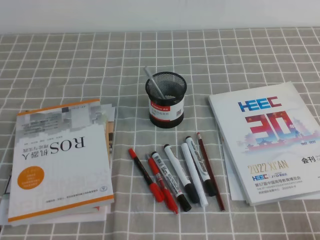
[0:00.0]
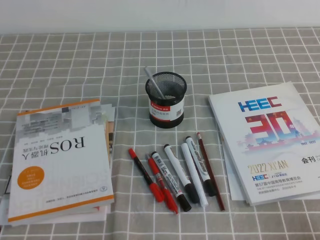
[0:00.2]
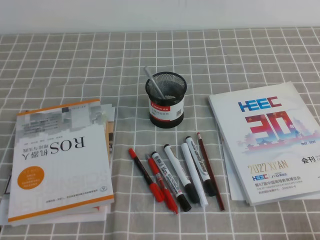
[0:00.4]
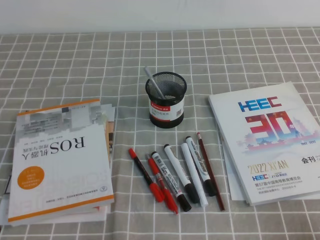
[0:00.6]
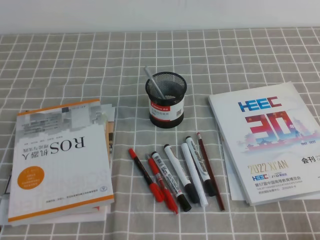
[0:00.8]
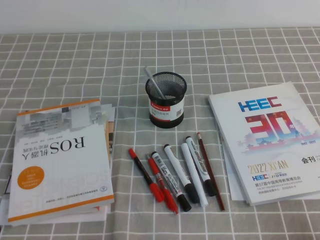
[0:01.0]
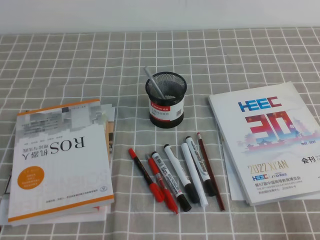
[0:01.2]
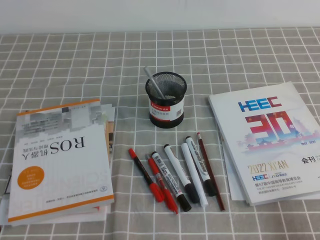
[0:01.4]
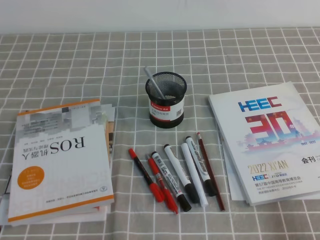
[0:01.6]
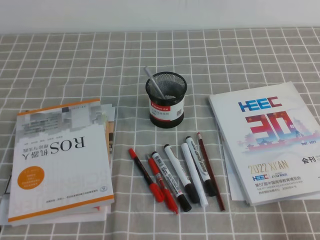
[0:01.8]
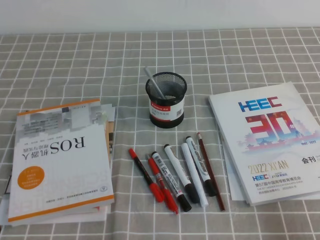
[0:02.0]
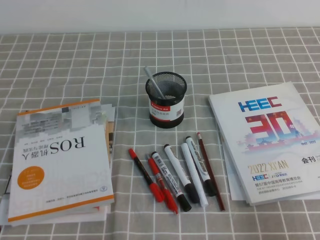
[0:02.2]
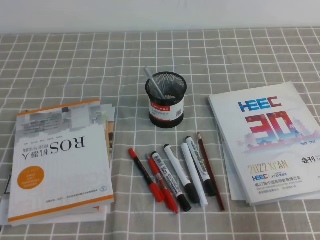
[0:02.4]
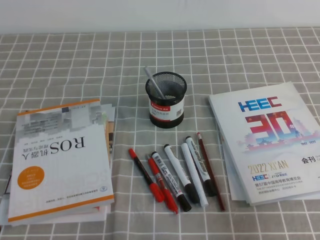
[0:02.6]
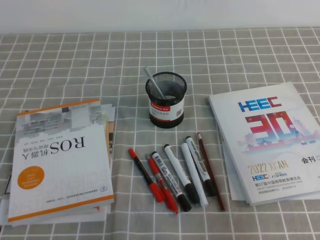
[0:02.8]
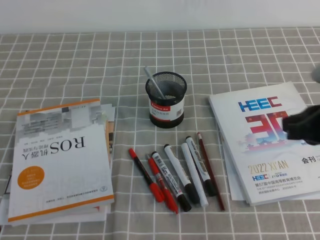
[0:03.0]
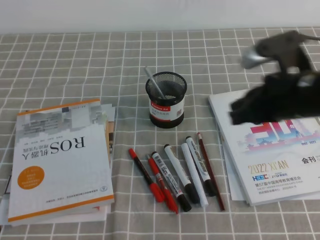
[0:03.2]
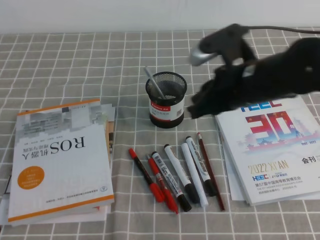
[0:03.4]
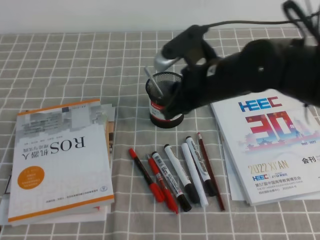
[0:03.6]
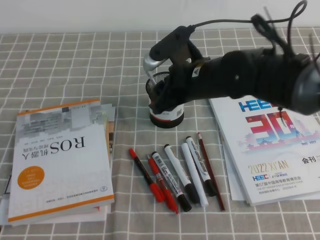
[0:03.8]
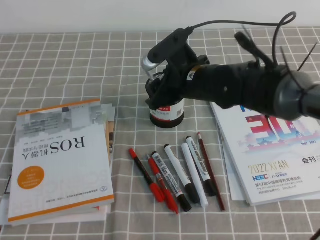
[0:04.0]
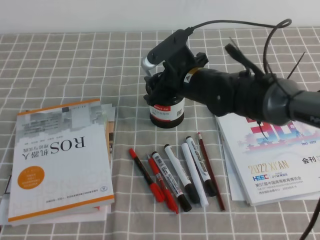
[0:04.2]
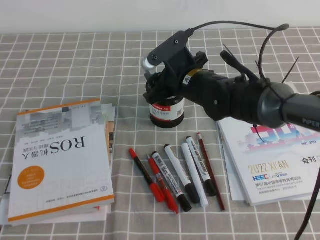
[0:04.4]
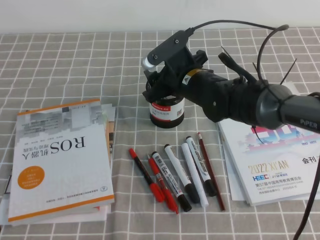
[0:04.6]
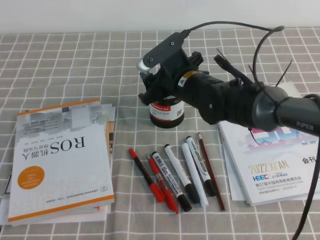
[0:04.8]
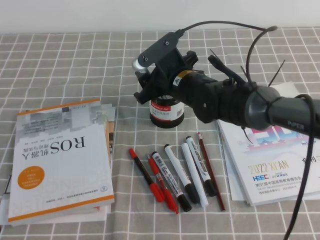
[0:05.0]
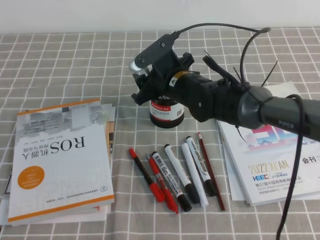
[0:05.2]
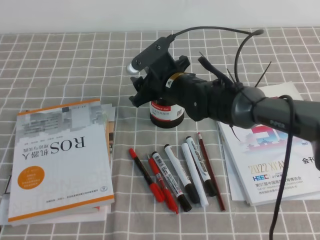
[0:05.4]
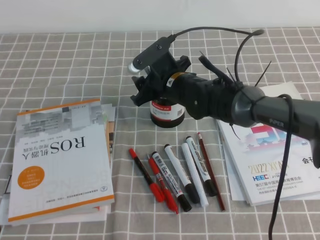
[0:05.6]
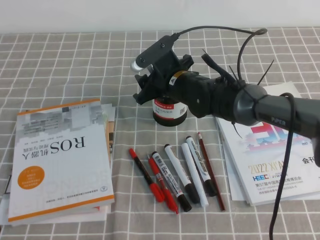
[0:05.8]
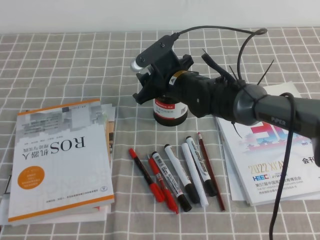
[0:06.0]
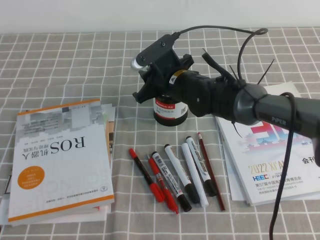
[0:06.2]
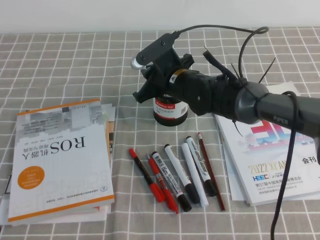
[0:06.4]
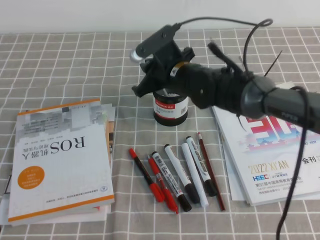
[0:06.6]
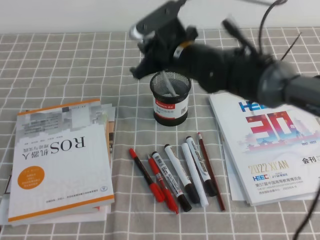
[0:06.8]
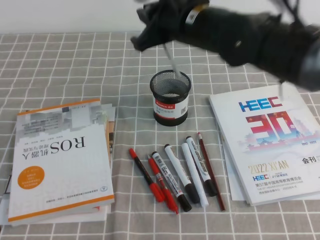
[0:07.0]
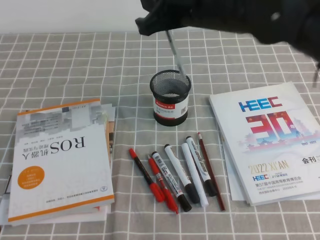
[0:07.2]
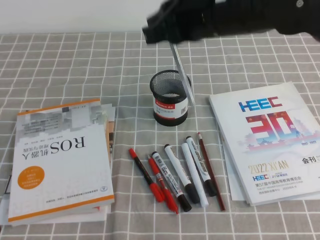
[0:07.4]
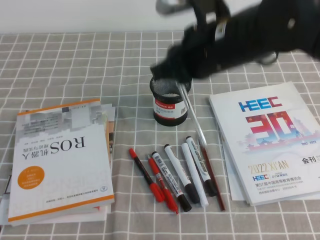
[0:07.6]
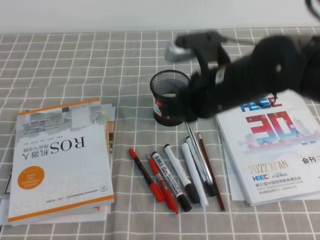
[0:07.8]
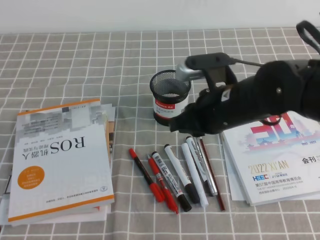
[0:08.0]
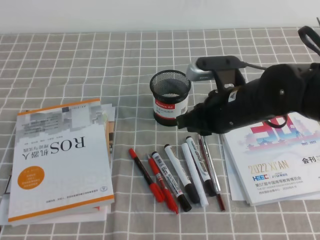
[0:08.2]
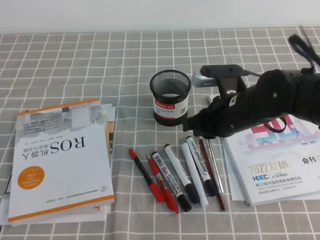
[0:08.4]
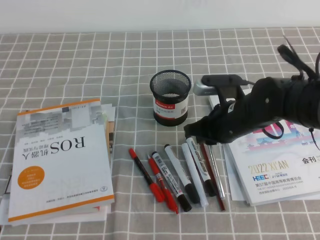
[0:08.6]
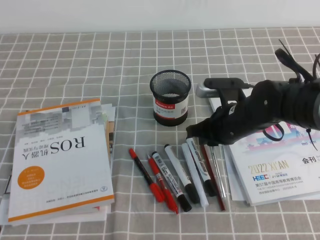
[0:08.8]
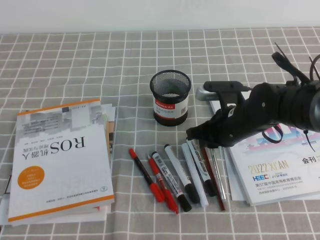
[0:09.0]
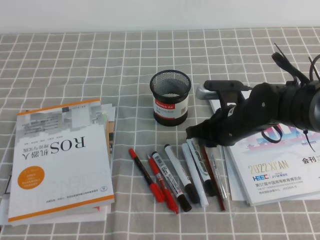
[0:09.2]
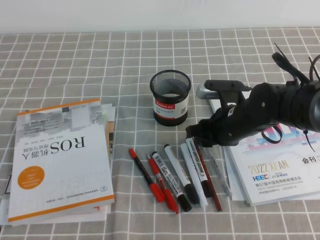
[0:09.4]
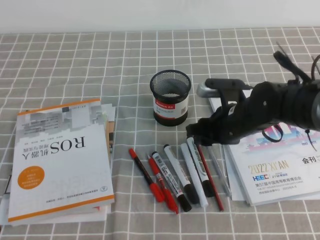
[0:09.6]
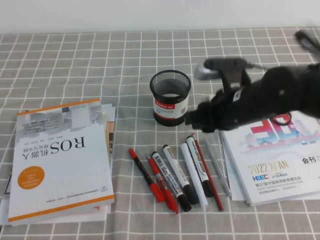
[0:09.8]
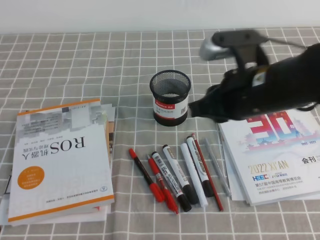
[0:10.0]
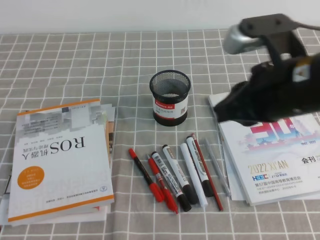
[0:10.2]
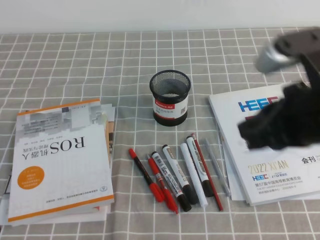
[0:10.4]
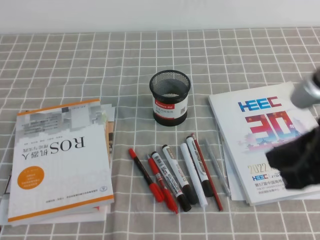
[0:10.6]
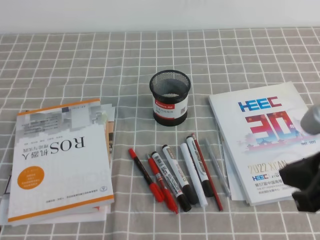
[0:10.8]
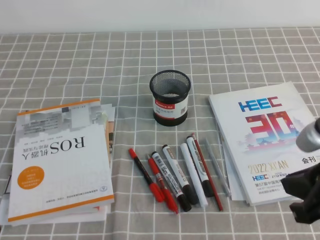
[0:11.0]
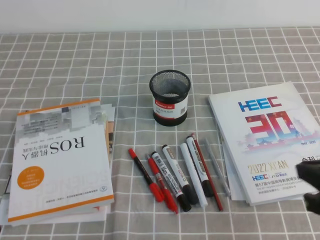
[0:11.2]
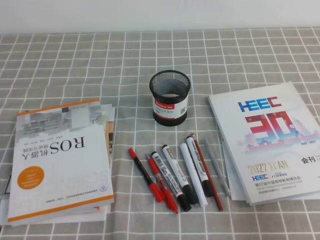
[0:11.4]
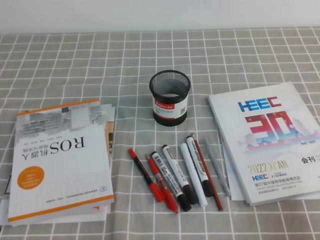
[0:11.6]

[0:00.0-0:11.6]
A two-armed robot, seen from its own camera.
0:01.4 to 0:02.8: The right gripper travels forward and upward by about 15 cm.
0:02.8 to 0:04.4: The right gripper goes some 35 cm to the left and forward, and opens up.
0:04.4 to 0:05.8: The grippers make only small movements.
0:05.8 to 0:07.2: The right gripper heads upward and backward, covering approximately 20 cm, and closes.
0:07.2 to 0:08.8: The right gripper goes some 20 cm downward.
0:08.8 to 0:10.2: The right gripper travels upward and backward by roughly 20 cm, and opens, then closes again.
0:10.2 to 0:11.6: The right gripper moves to the right, backward and downward, about 25 cm.

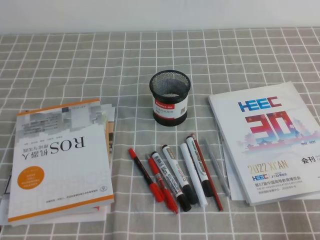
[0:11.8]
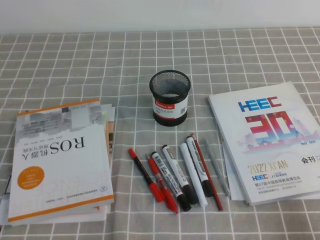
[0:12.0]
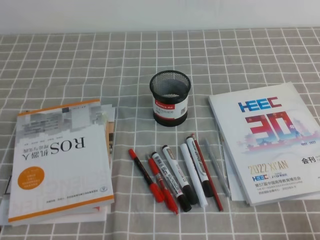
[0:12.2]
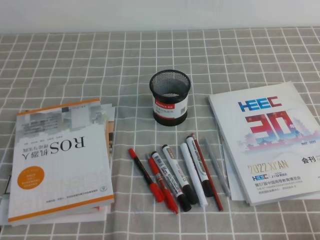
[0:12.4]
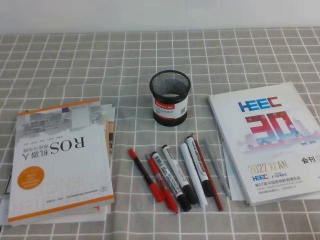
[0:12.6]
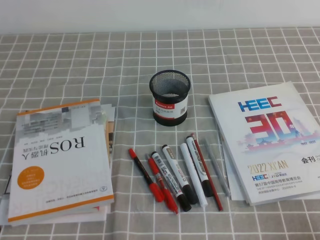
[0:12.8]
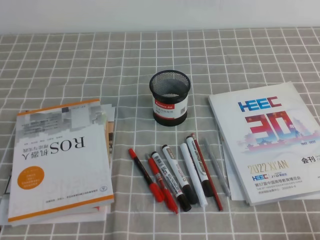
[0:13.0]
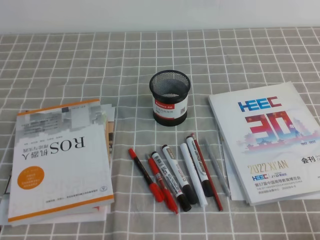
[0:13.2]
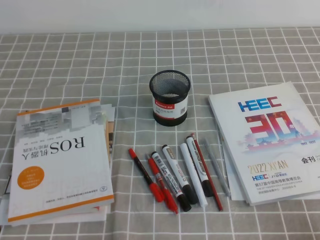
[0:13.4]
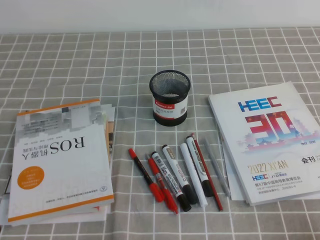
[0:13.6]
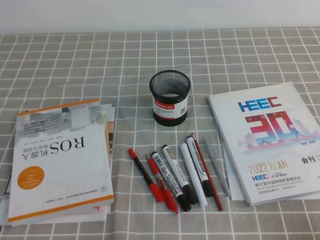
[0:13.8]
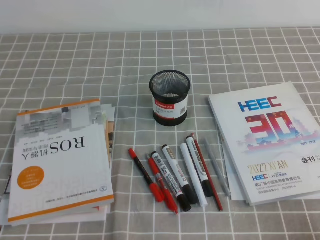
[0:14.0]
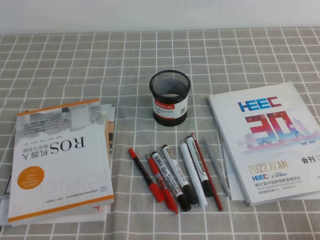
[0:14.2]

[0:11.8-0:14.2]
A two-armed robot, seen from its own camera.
0:13.0 to 0:14.2: Neither gripper changes place.

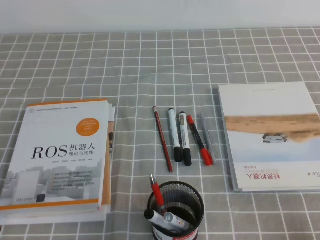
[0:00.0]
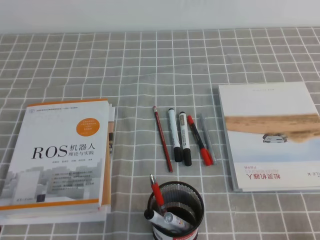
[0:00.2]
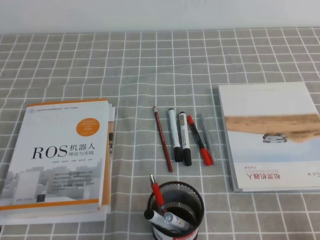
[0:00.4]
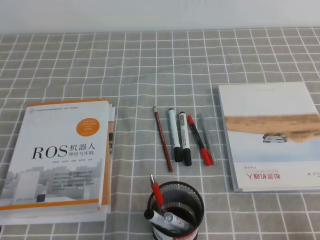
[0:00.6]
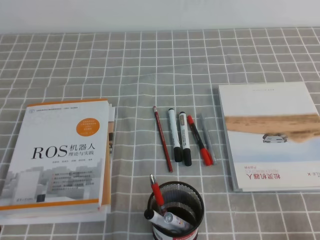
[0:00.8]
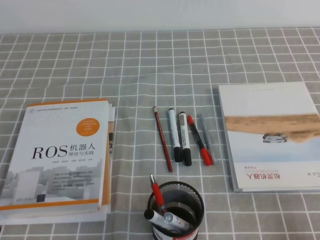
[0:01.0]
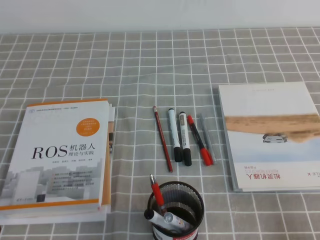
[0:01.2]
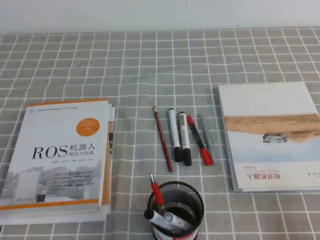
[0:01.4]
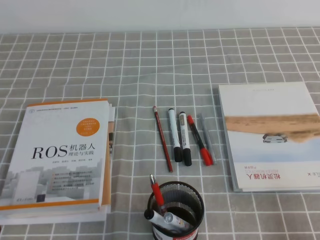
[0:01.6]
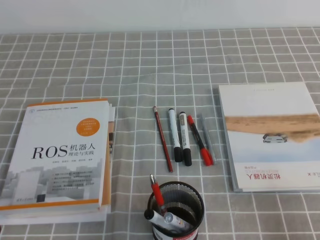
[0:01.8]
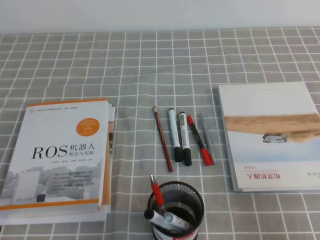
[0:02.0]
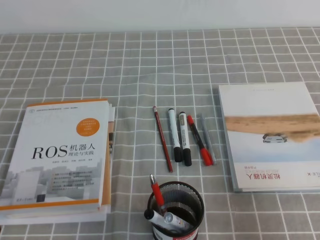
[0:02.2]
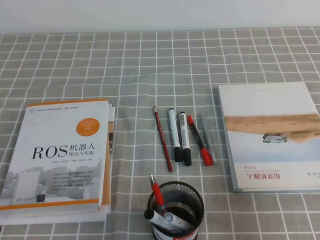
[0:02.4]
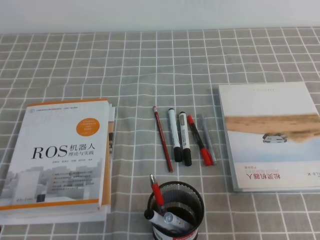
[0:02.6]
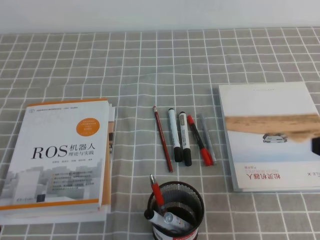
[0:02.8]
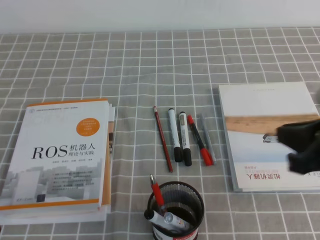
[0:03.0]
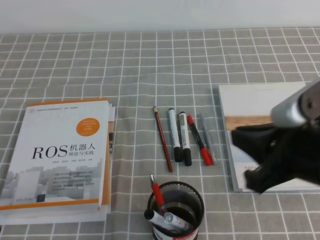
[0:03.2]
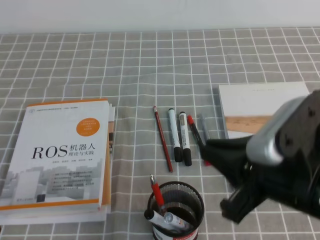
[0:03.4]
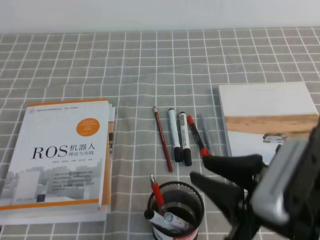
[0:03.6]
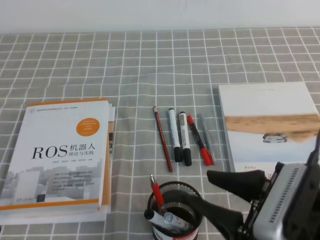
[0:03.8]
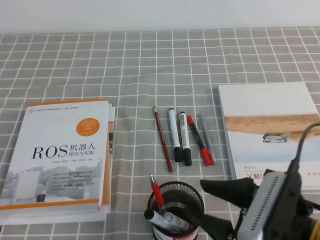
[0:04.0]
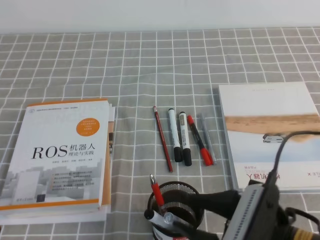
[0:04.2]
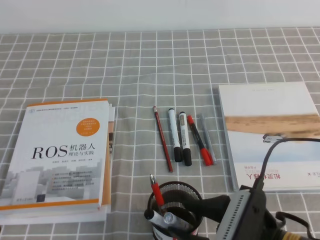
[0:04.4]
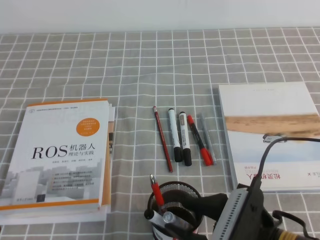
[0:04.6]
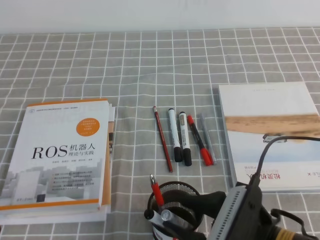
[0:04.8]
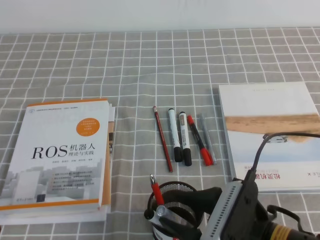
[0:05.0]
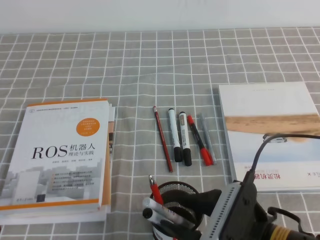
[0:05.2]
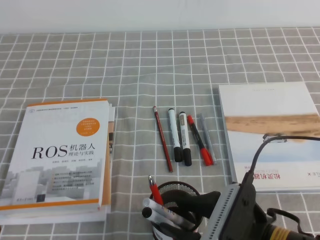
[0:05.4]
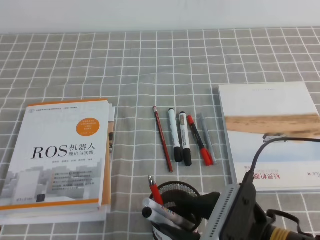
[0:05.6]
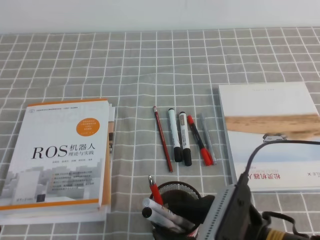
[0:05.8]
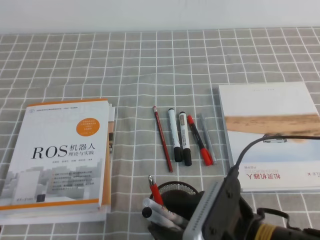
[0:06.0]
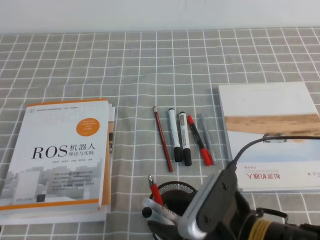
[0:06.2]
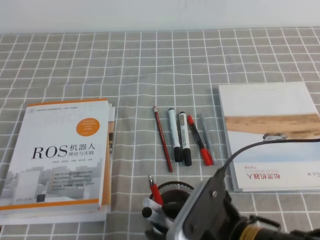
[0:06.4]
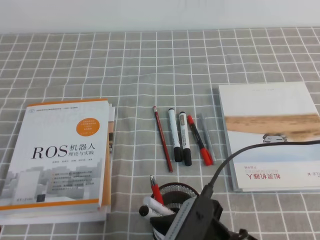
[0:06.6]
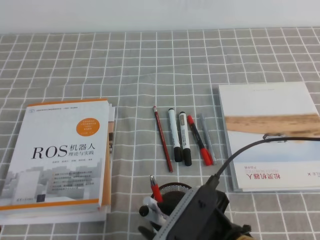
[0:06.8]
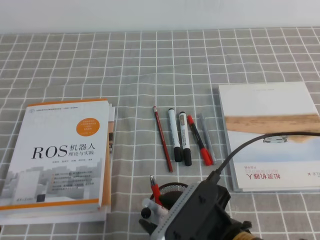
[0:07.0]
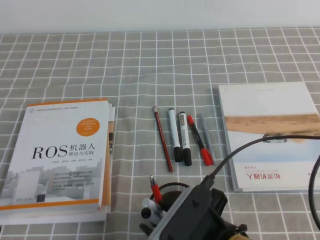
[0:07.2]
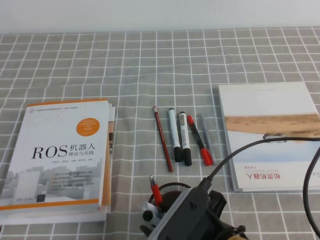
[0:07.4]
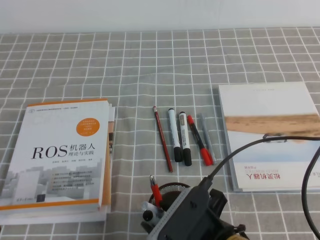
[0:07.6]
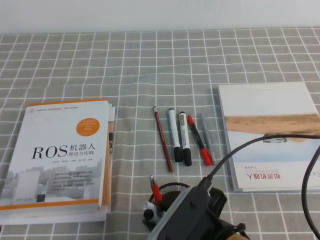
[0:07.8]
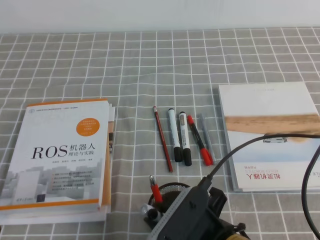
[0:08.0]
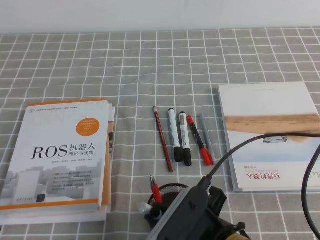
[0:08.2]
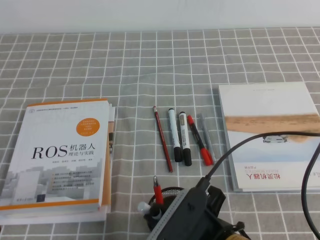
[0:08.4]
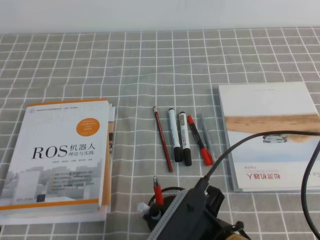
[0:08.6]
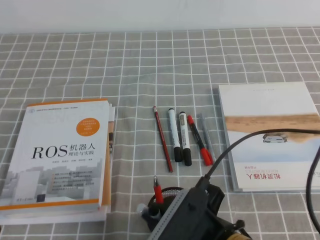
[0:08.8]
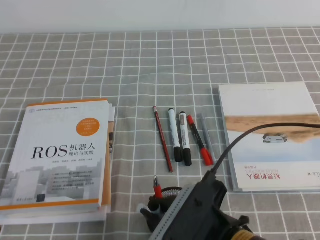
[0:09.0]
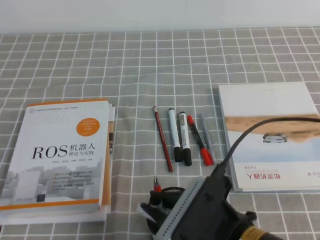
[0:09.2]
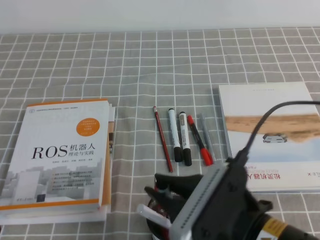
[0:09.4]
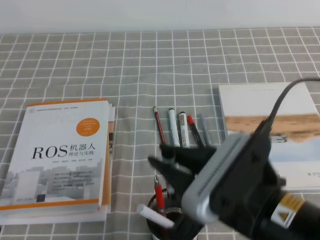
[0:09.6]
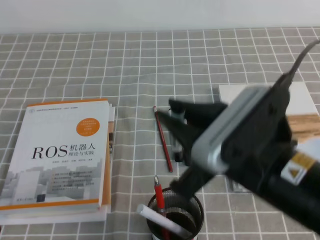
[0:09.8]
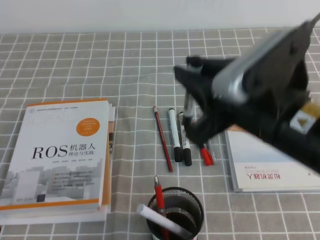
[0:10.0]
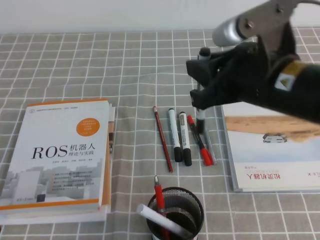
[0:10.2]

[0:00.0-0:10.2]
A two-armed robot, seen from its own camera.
0:01.4 to 0:03.0: The right gripper is displaced upward, forward and to the left by approximately 20 cm.
0:03.0 to 0:04.4: The right gripper goes some 15 cm to the left, downward and backward, and opens up.
0:04.4 to 0:07.2: There are only small adjustments of the grippers.
0:07.2 to 0:08.8: The right gripper closes.
0:08.8 to 0:10.2: The right gripper heads upward and forward, covering about 20 cm.
